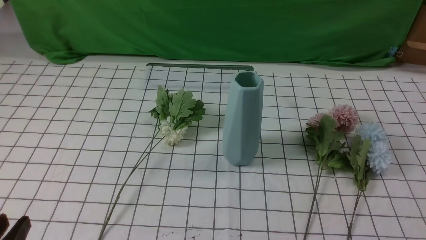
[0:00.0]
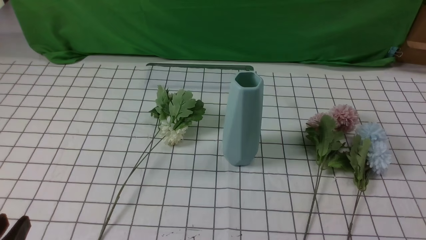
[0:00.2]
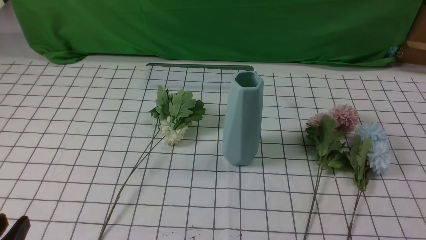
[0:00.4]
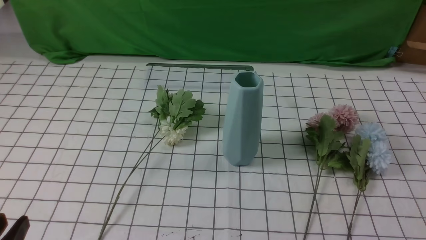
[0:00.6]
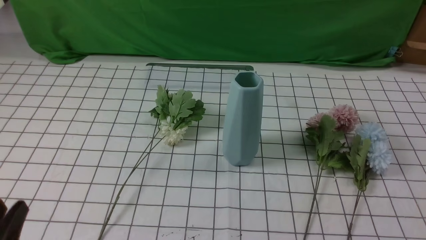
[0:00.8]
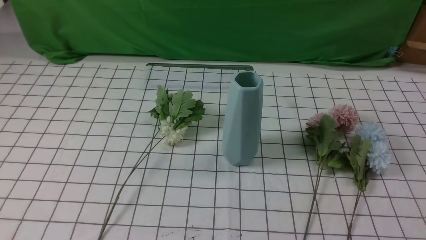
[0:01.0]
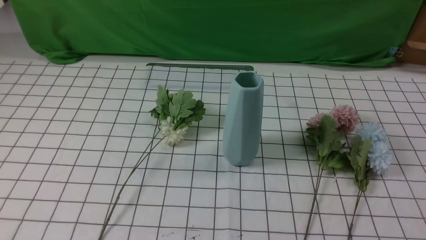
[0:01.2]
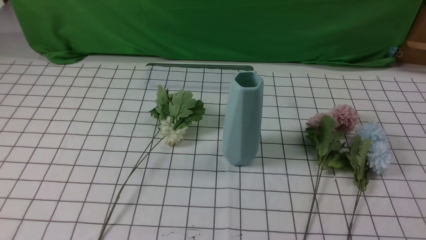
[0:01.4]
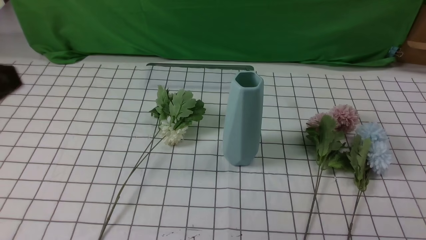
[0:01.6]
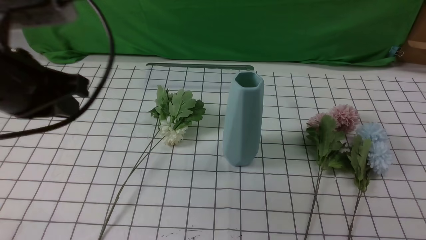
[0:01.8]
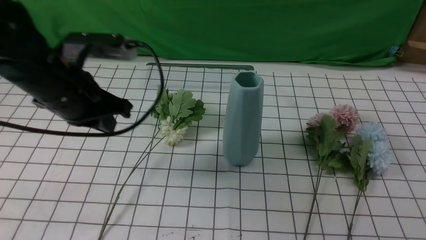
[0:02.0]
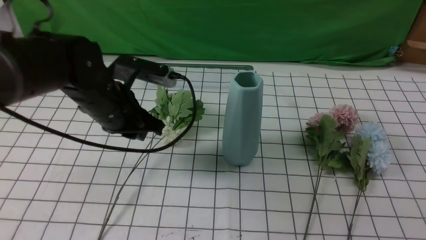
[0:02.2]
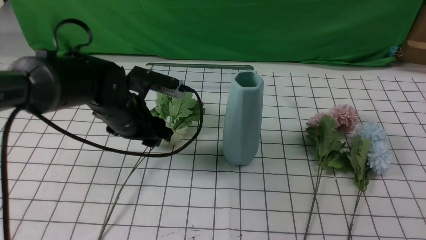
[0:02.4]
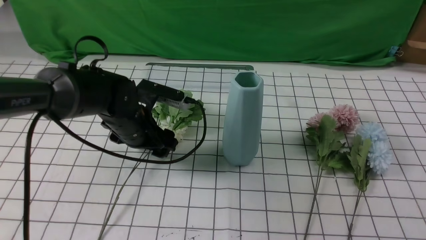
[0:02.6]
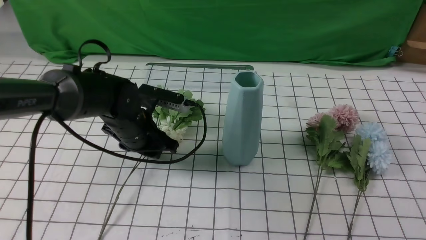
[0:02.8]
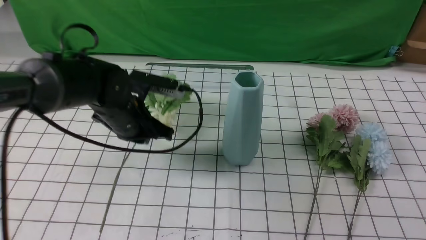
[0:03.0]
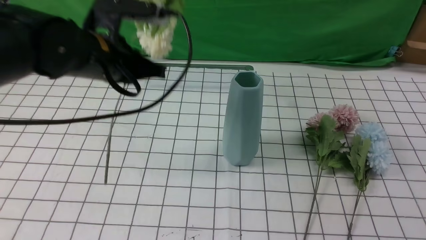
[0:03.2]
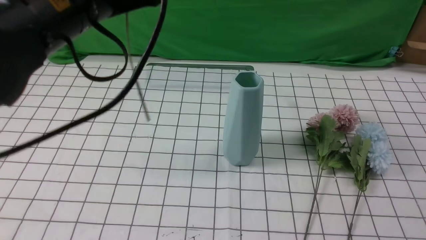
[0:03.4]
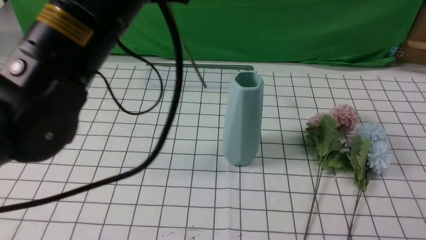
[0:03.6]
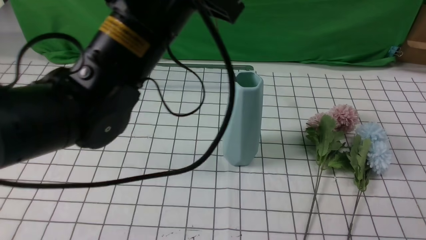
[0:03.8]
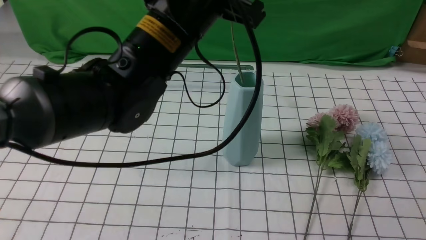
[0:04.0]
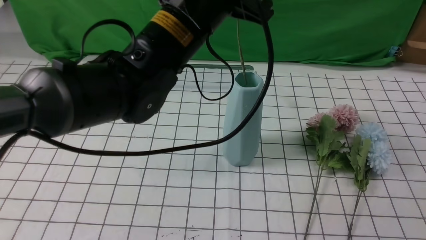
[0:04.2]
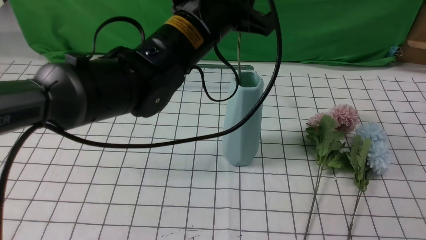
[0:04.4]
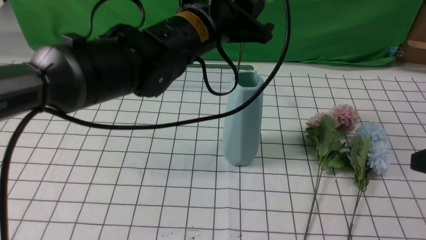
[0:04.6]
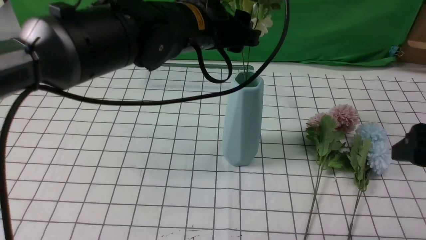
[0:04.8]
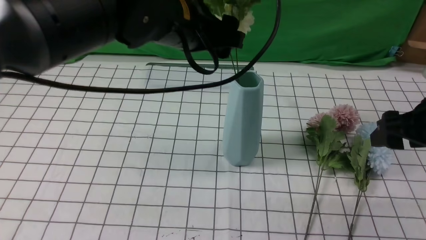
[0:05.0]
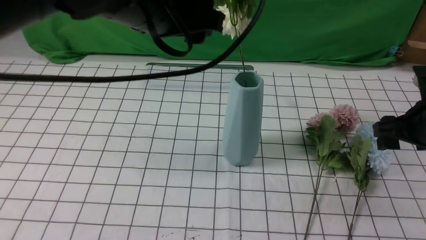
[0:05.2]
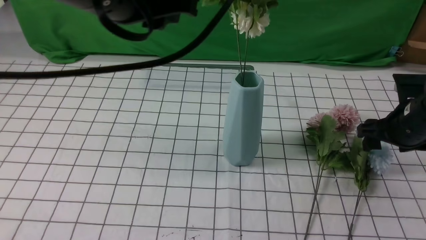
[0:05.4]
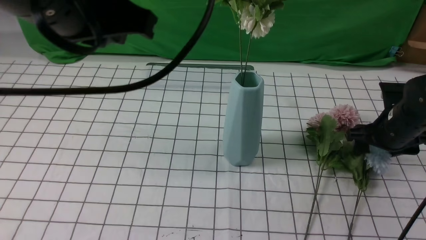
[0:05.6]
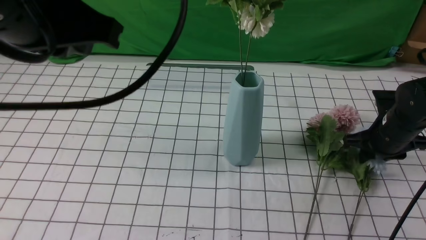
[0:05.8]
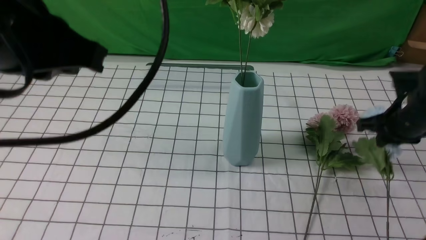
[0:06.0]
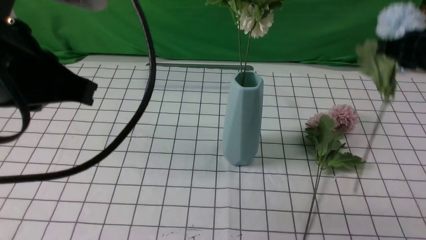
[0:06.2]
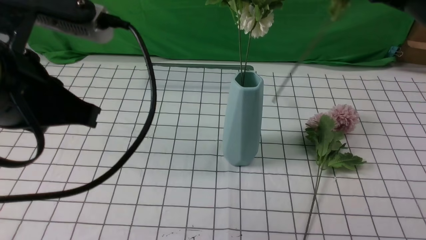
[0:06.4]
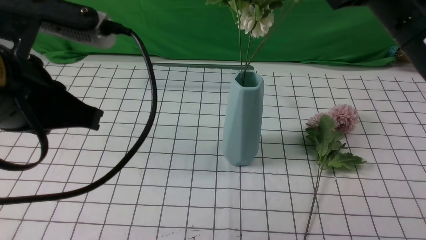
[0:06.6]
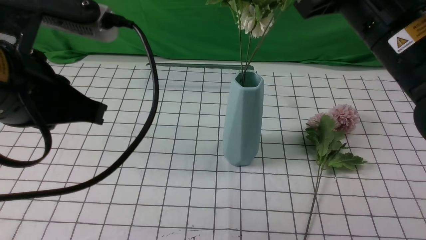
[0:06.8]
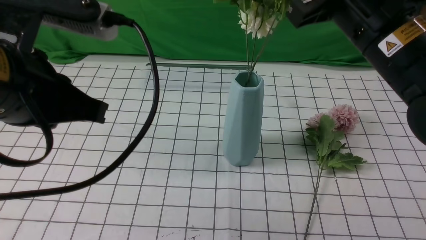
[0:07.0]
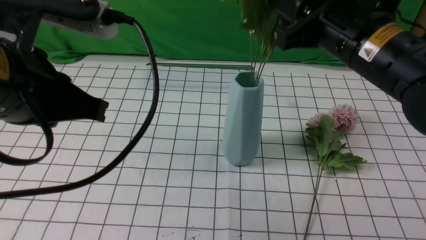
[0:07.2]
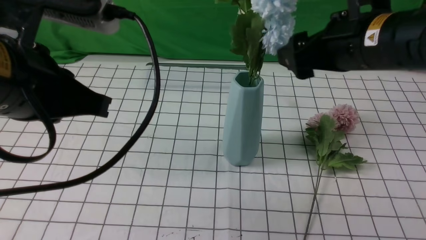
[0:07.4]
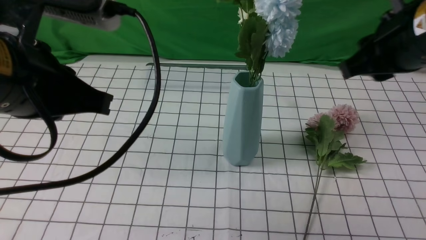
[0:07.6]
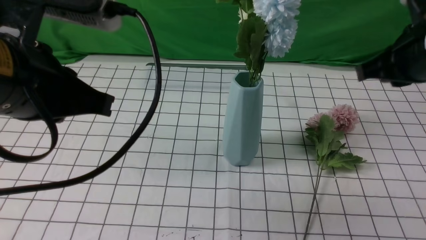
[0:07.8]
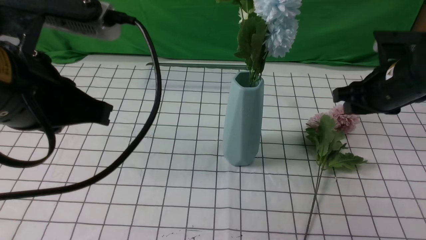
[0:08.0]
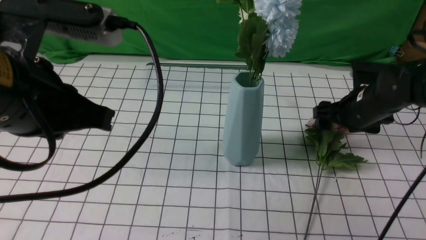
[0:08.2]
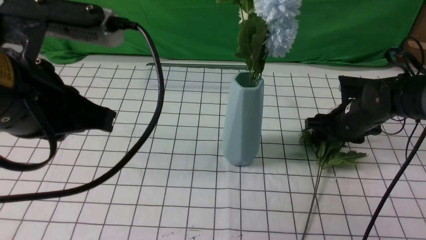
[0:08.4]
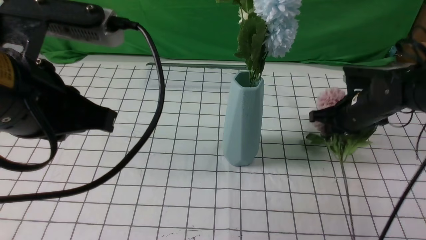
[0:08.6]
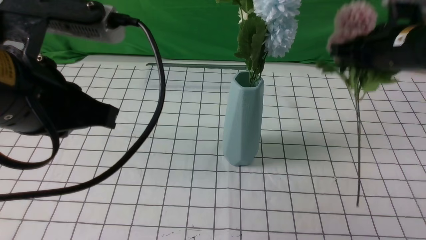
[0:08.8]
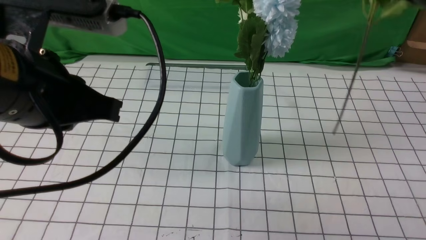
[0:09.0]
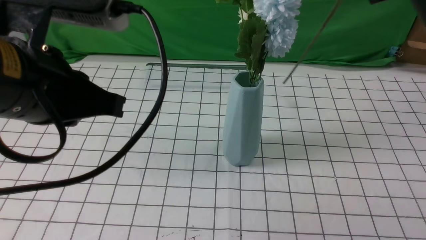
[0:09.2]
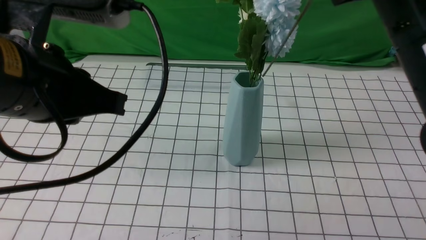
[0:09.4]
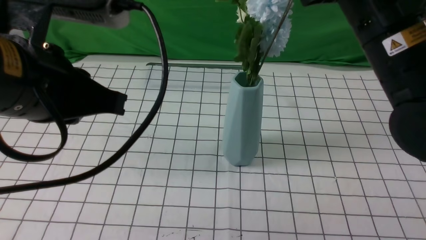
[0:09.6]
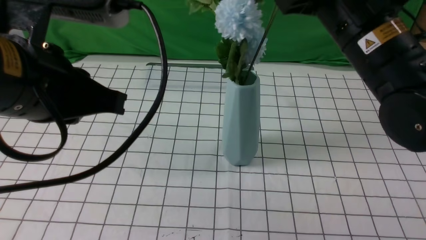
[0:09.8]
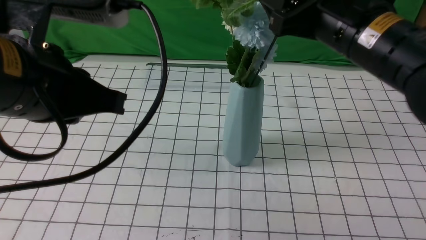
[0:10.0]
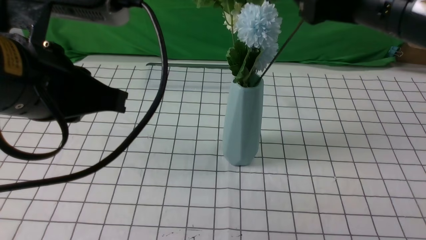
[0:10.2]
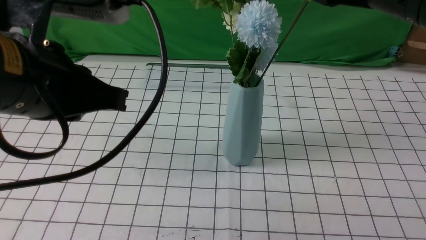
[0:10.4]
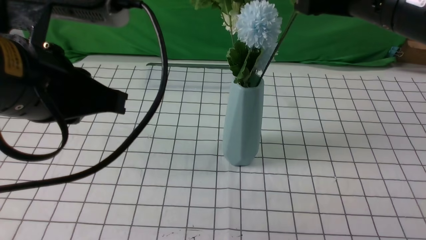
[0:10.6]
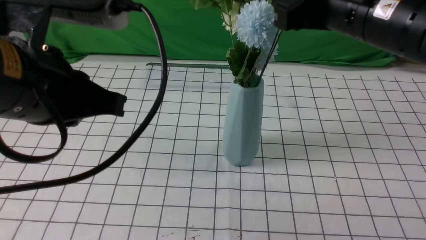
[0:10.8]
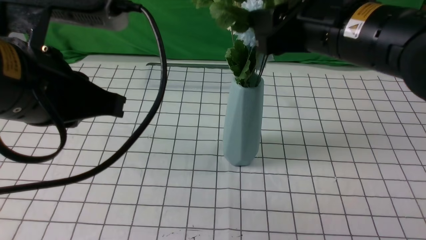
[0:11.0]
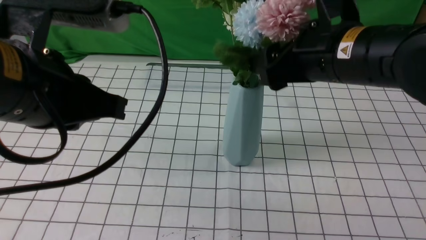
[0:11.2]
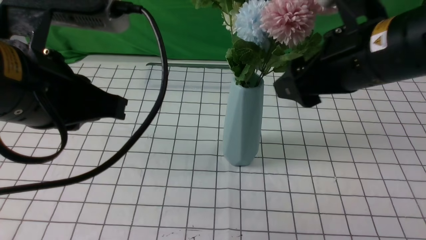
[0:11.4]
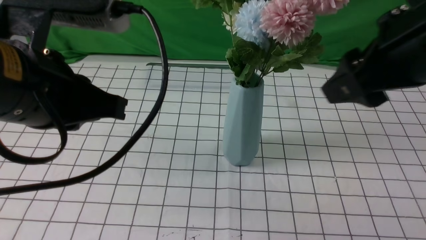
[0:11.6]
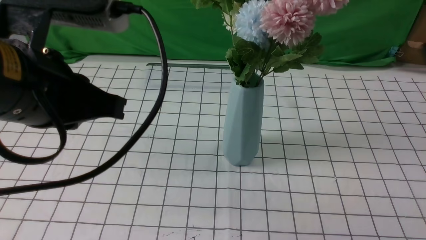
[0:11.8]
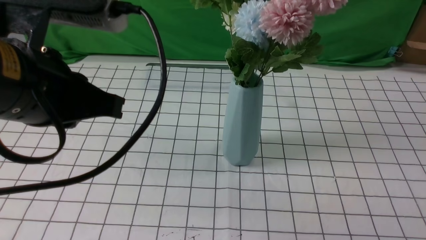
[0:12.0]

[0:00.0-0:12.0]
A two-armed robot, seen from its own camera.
Task of the whole recording: insert the flowers into the vase on the table with the white tablecloth.
Step, 0:00.0 to 0:02.8: use the left arm to grab a bunch of fresh flowers.
Step, 0:03.0 to 0:05.0: use the left arm to insert the flowers into the vase.
Step, 0:05.2 to 0:05.8: use the right arm to grab a bunch of fresh flowers.
Step, 0:06.2 to 0:07.4: use the right arm to insert the flowers into the vase.
Step, 0:07.6 to 0:08.4: use the right arm to grab a bunch of fresh flowers.
Step, 0:08.8 to 0:11.4: use the right arm to insert the flowers into the vase.
0:00.0 to 0:01.6: The left gripper travels upward and forward by approximately 20 cm, and closes.
0:01.6 to 0:03.0: The right gripper travels upward and forward by approximately 15 cm. Meanwhile the left gripper shifts approximately 25 cm forward, downward and to the right, and opens, then closes again.
0:03.0 to 0:04.4: The left gripper heads upward and to the right, covering about 15 cm.
0:04.4 to 0:06.0: The right gripper goes approximately 20 cm forward and downward, and closes; the left gripper shifts about 20 cm backward, to the left and upward, and opens and closes again.
0:06.0 to 0:07.6: The right gripper shifts about 15 cm upward, to the left and backward.
0:07.6 to 0:09.0: The right gripper goes downward and returns, roughly 20 cm each way, and opens, then closes once more.
0:09.0 to 0:10.4: The right gripper changes place by about 5 cm, and opens its fingers.
0:10.4 to 0:12.0: The right gripper travels backward and to the right by roughly 20 cm, and closes.

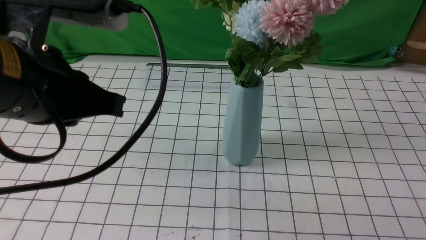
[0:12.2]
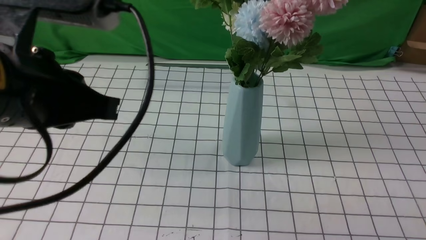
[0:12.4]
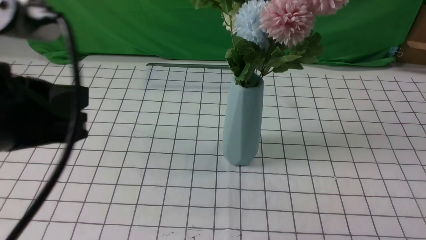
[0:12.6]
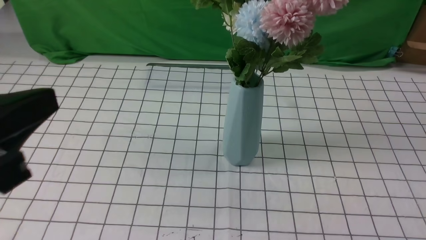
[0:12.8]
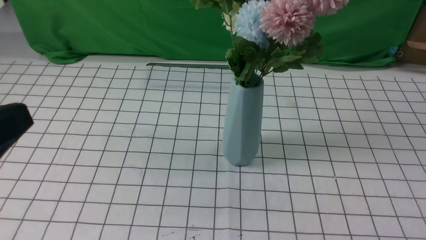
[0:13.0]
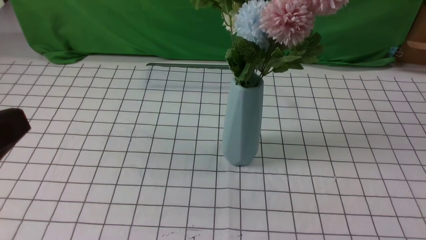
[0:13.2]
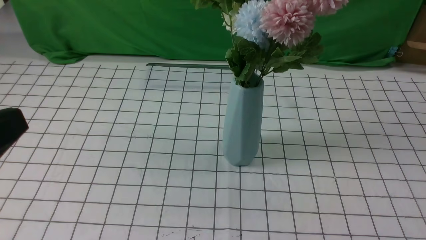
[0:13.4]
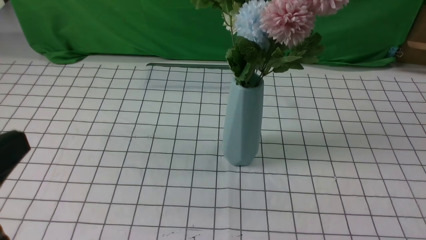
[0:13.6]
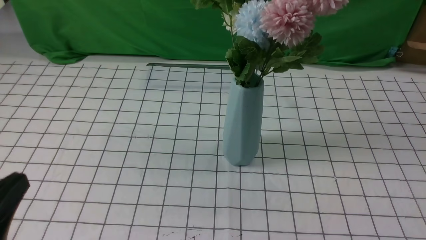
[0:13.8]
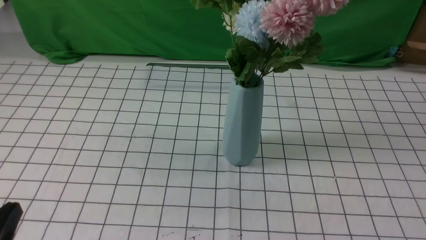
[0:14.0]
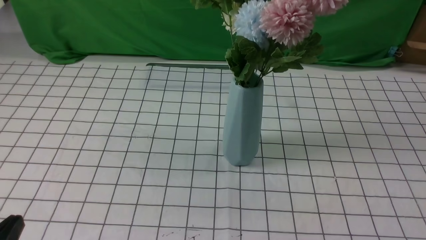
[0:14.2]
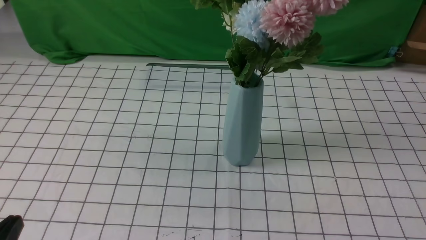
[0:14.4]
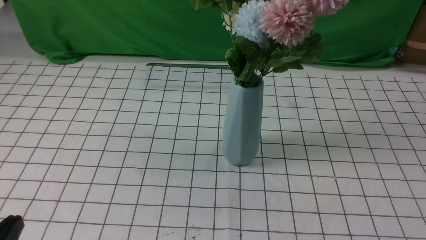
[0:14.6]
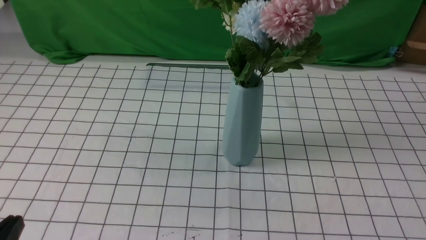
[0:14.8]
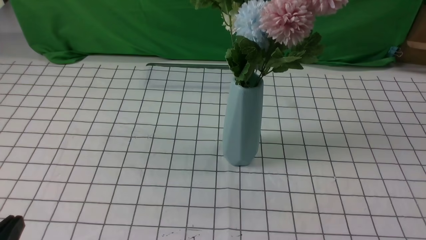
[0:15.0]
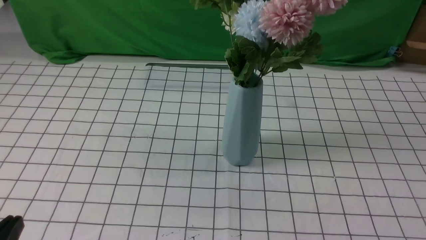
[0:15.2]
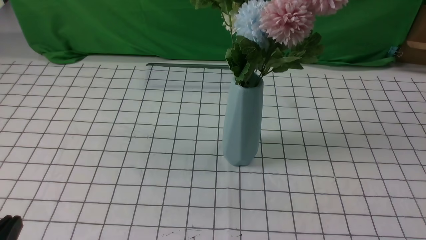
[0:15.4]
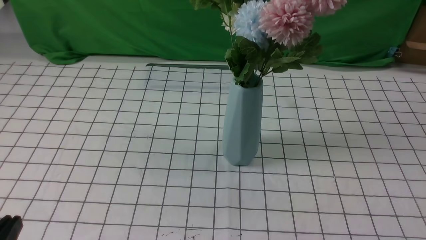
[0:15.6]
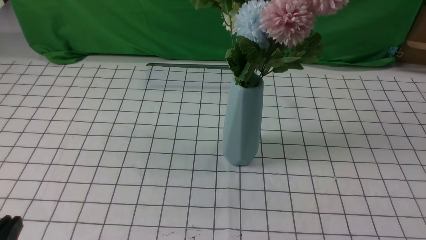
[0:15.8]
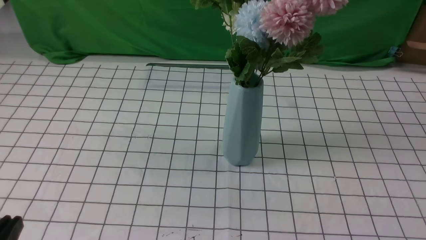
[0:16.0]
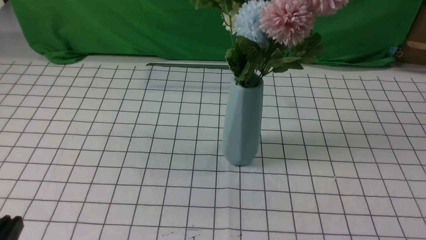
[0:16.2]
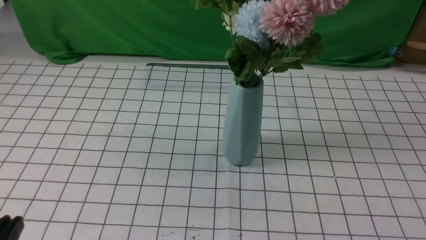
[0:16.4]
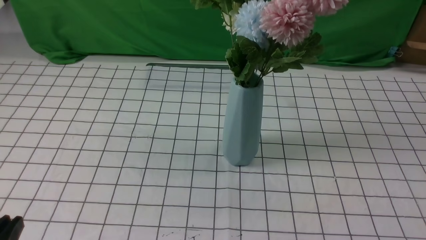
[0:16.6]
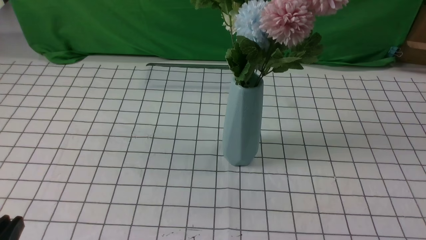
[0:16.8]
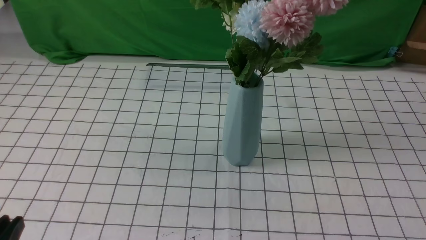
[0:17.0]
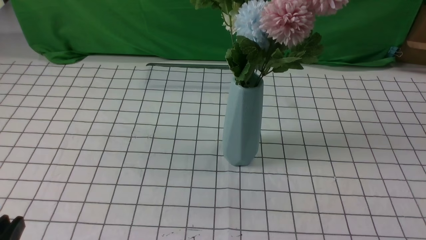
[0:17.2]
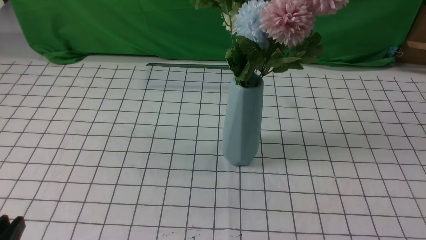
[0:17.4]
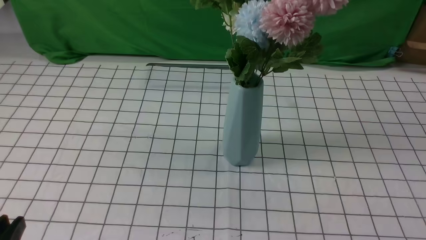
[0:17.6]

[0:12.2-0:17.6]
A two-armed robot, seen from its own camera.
Task of the whole recording: insert the flowers into the vase on the table with the white tablecloth.
0:12.2 to 0:13.6: The right gripper travels downward by roughly 5 cm; the left gripper heads backward, to the left and downward, covering some 15 cm.
0:13.6 to 0:15.0: The left gripper heads downward, covering roughly 10 cm.
0:16.2 to 0:17.6: Both grippers stay about where they are.
